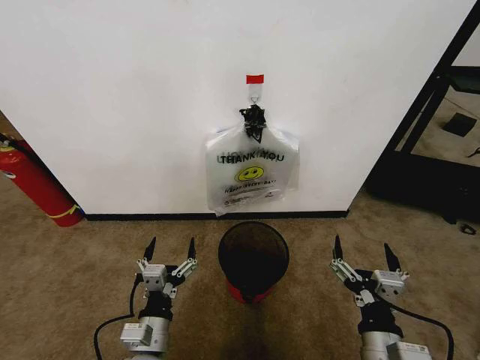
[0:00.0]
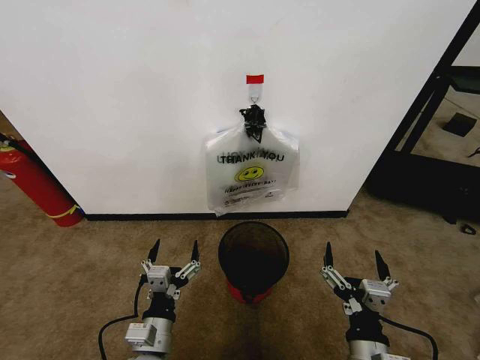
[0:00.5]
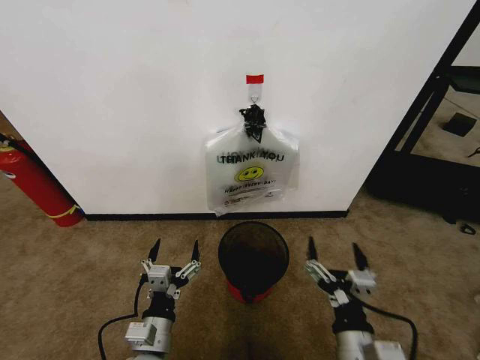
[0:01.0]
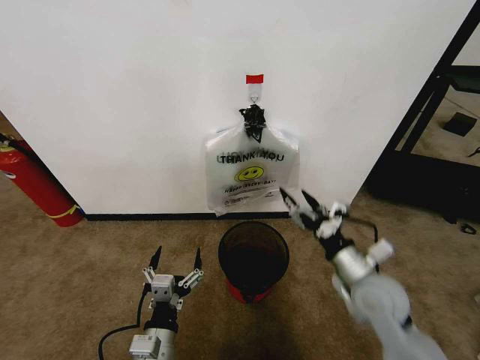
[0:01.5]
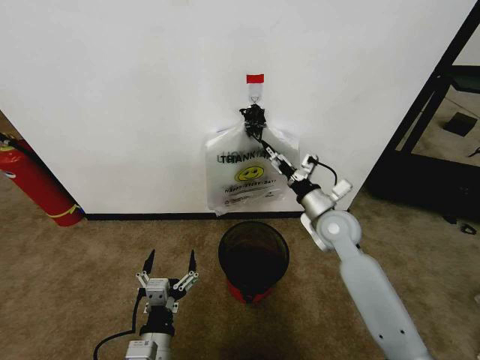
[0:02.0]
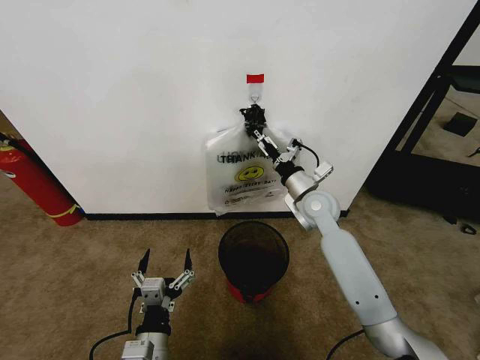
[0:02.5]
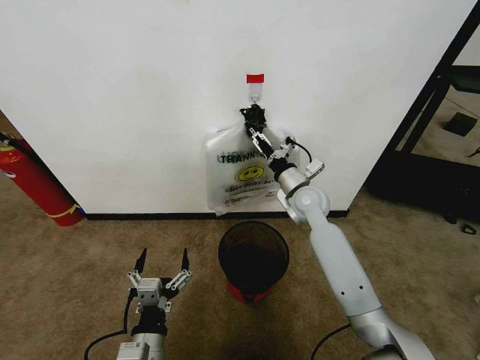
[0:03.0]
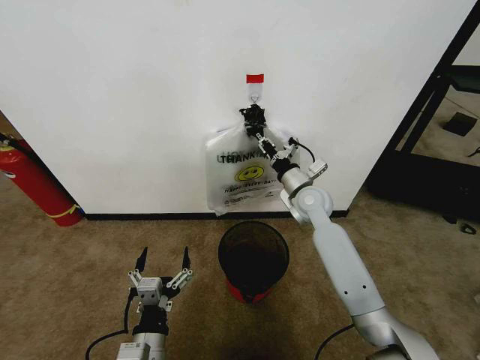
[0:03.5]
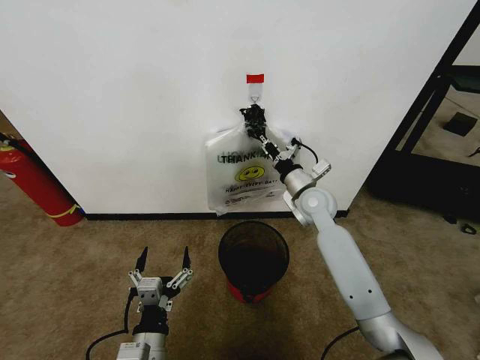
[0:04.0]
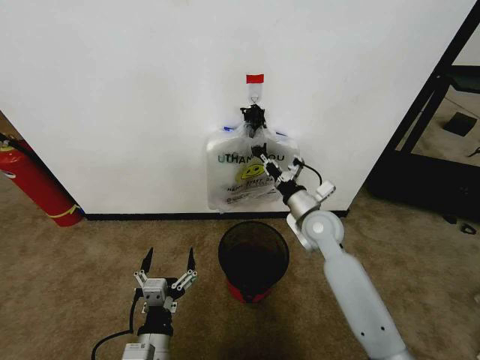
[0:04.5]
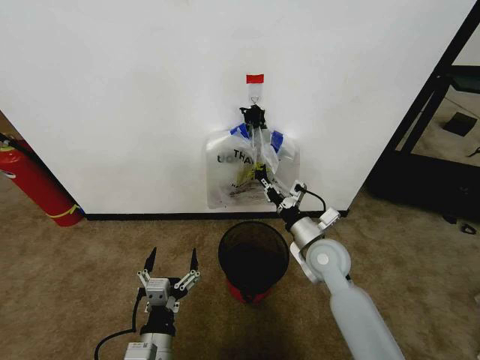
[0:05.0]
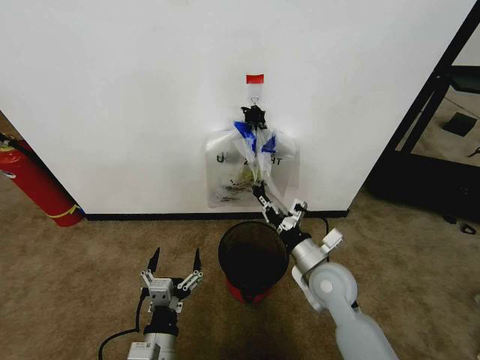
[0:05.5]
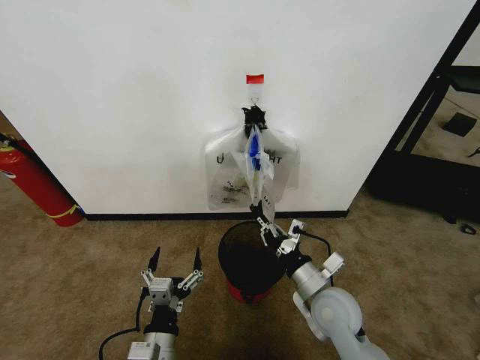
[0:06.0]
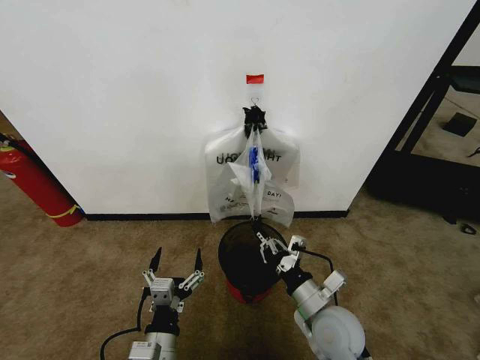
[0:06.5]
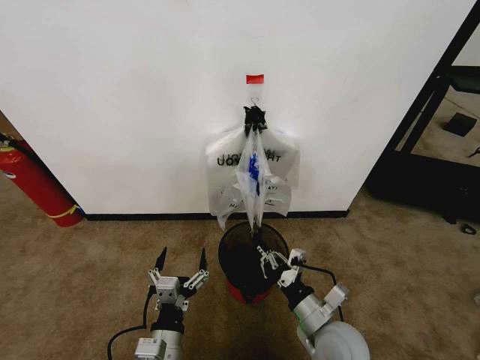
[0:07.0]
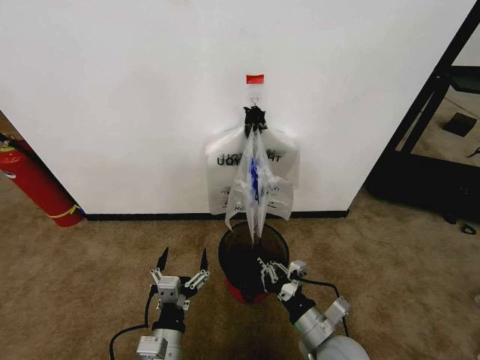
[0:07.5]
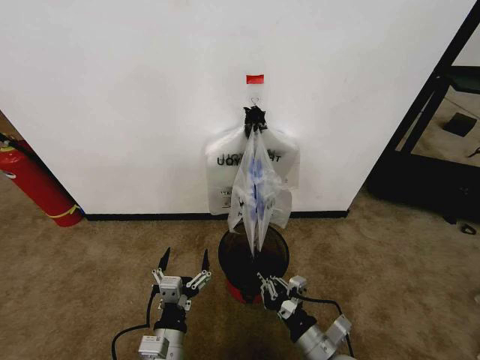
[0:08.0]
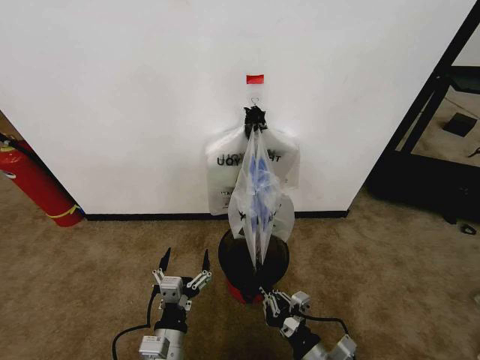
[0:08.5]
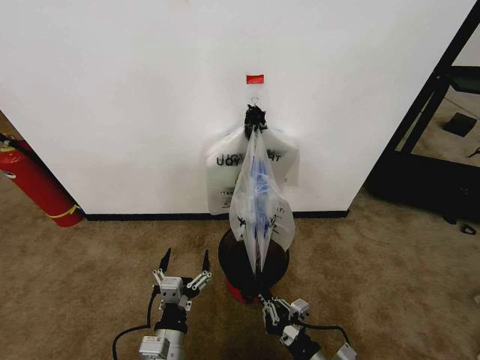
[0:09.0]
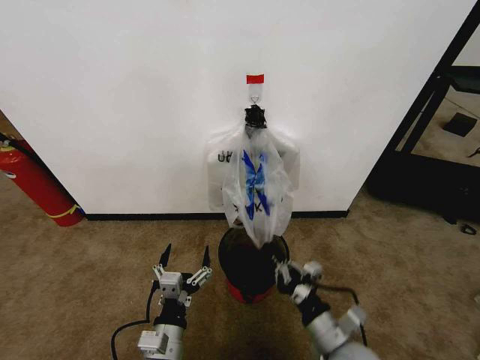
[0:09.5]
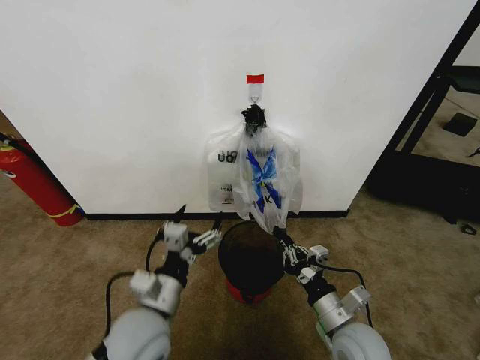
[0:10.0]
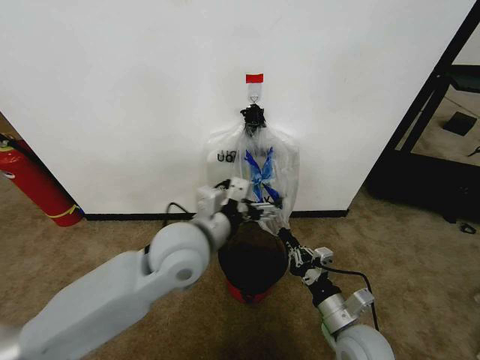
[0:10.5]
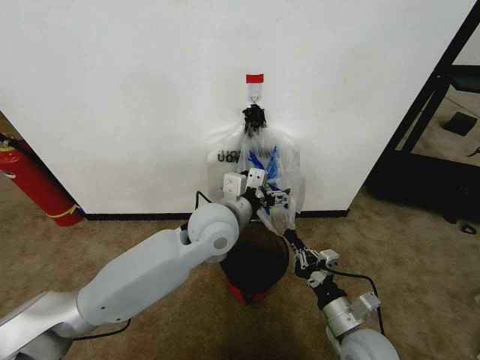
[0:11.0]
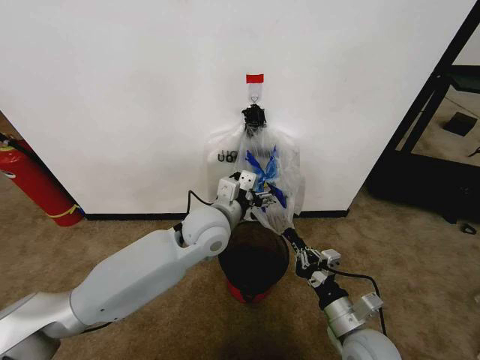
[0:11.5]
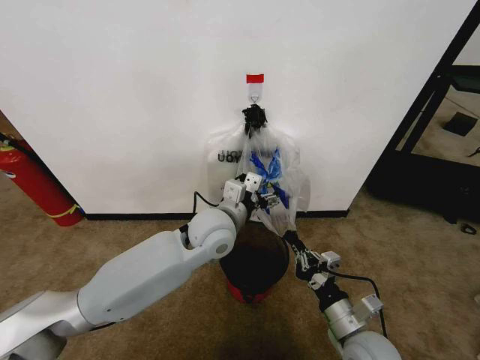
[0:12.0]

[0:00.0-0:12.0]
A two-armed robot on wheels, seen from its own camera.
Task of the whole recording: Pick up the garbage bag from the wall and place it over the trash bin.
0:02.0 to 0:04.0: The right gripper travels forward by roughly 5 cm, and closes its fingers.
0:04.0 to 0:06.0: The right gripper moves backward, roughly 20 cm.
0:06.0 to 0:08.0: The right gripper shifts roughly 10 cm backward and downward.
0:08.0 to 0:10.0: The left gripper moves upward and forward, roughly 15 cm. The right gripper moves about 5 cm.
0:10.0 to 0:12.0: The left gripper moves forward and to the right, roughly 20 cm.

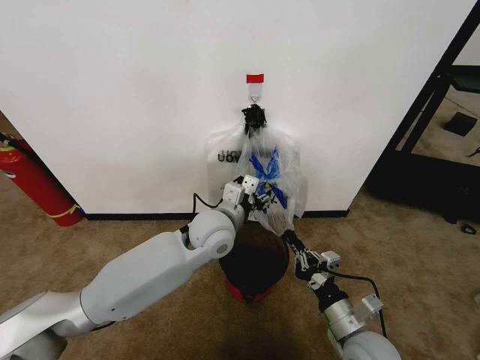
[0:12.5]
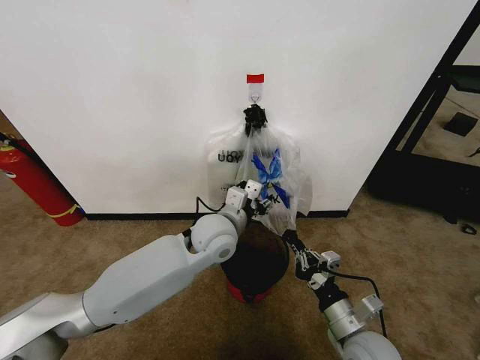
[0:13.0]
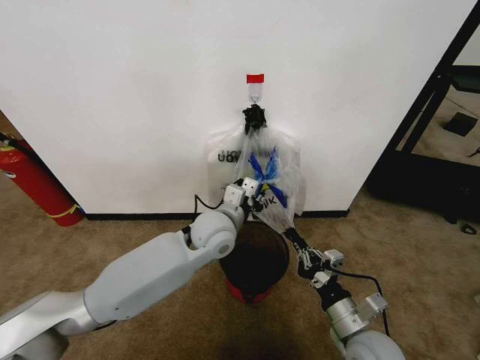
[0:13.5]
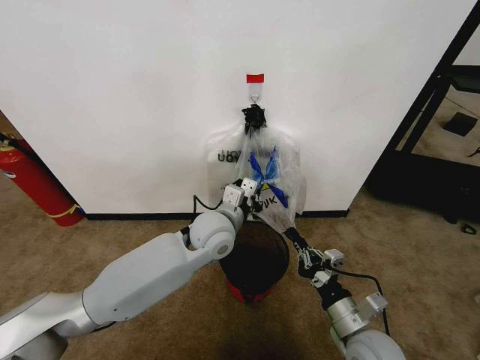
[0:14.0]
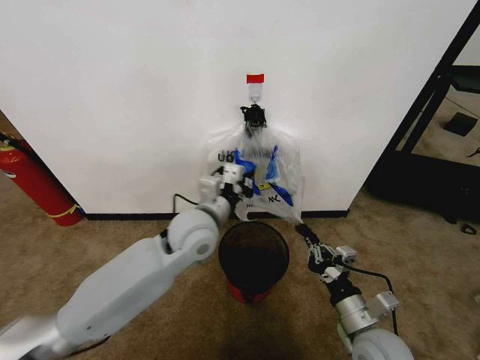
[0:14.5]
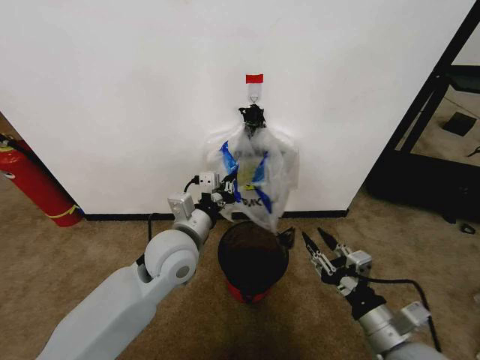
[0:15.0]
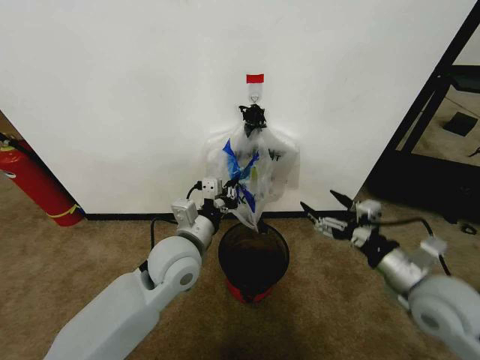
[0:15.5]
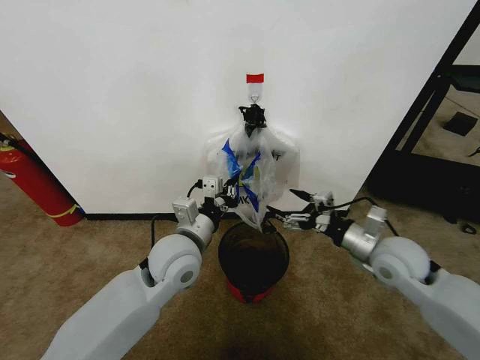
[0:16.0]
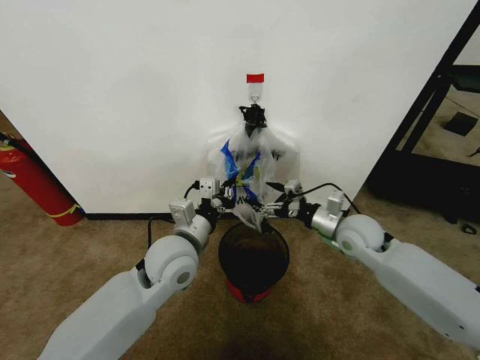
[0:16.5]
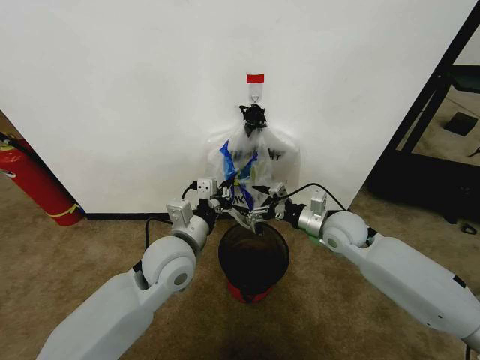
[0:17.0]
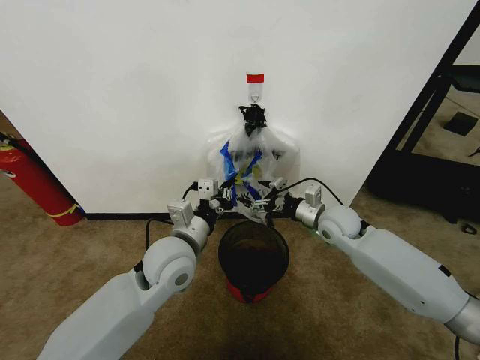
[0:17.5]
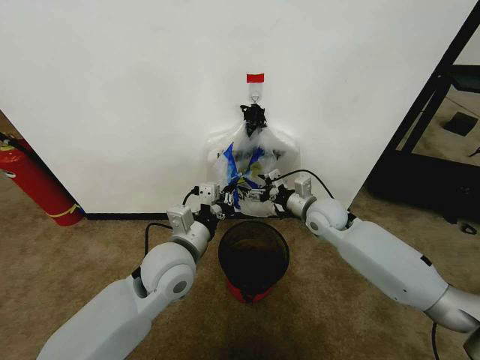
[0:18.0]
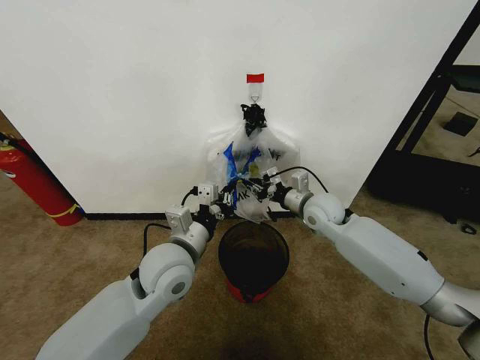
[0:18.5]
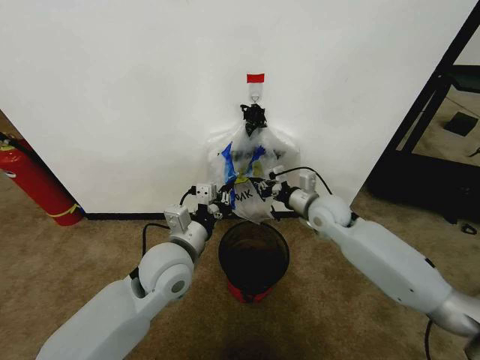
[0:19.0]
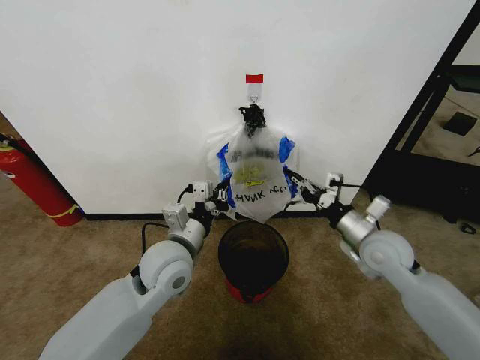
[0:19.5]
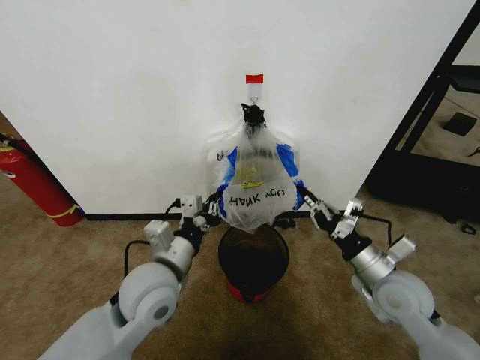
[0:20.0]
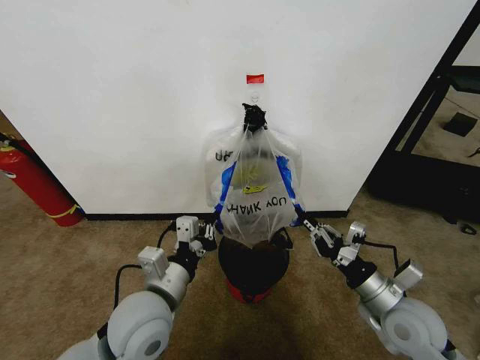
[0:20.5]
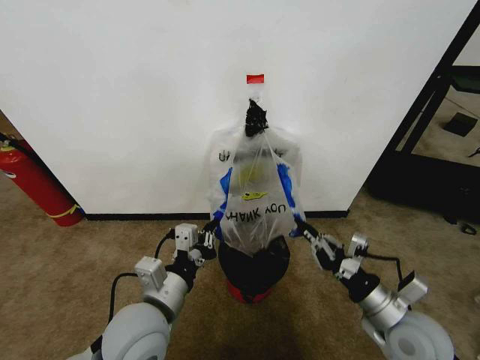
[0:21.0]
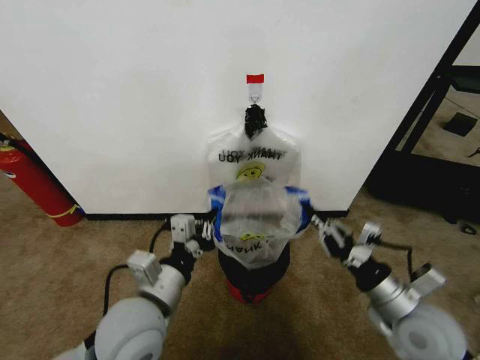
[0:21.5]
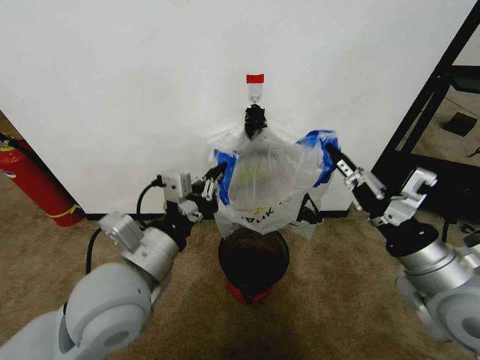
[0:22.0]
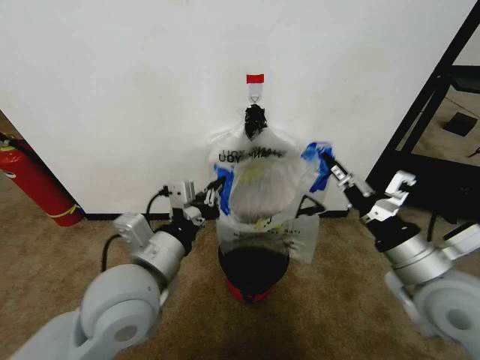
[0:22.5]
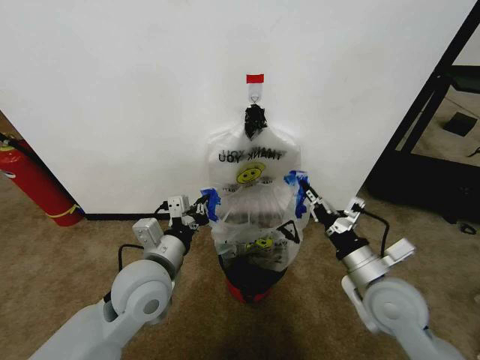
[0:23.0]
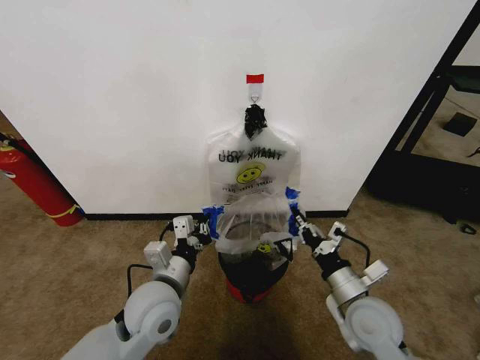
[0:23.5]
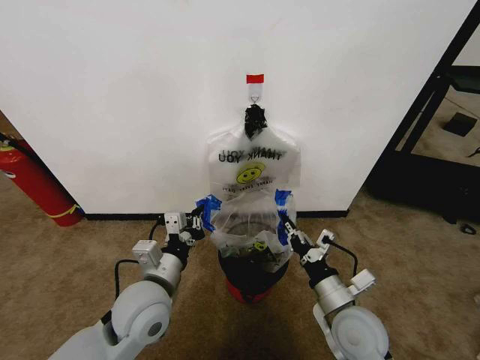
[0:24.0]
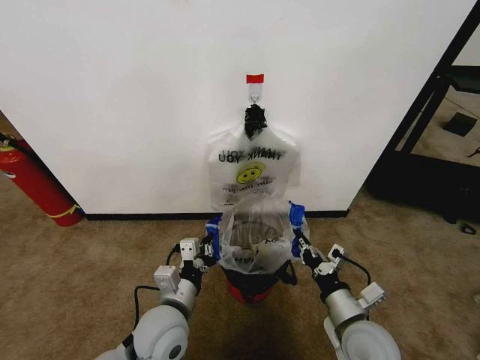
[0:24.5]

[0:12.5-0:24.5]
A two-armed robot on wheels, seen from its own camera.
Task of the whole recording: Pick up the garbage bag from the wall and place it over the trash bin.
0:12.5 to 0:14.5: The left gripper closes its fingers.
0:14.5 to 0:16.5: The right gripper heads forward, covering roughly 20 cm, and opens. The left gripper ends up about 5 cm from where it was.
0:16.5 to 0:18.5: The right gripper is displaced forward and to the left by approximately 10 cm, and closes up.
0:18.5 to 0:20.5: The left gripper heads backward, covering approximately 10 cm, while the right gripper is displaced backward and to the right by approximately 25 cm.
0:20.5 to 0:22.5: The two grippers go roughly 10 cm upward.
0:22.5 to 0:24.5: The two grippers go roughly 15 cm downward.

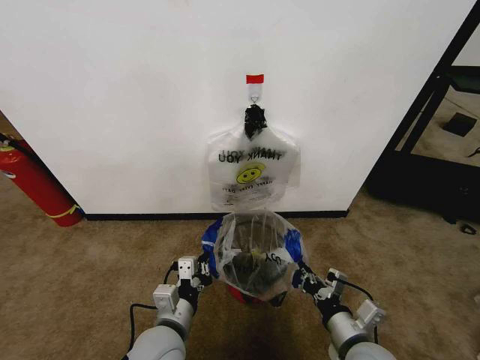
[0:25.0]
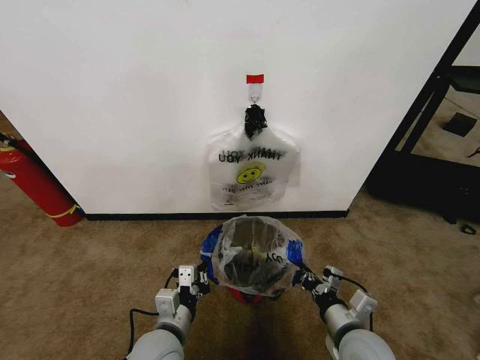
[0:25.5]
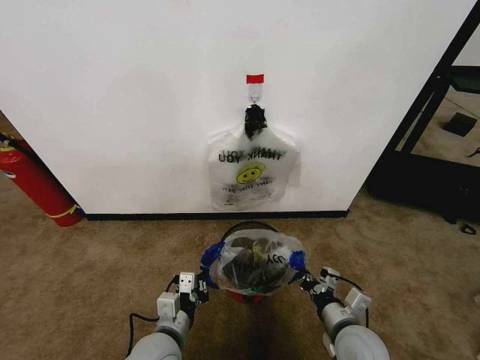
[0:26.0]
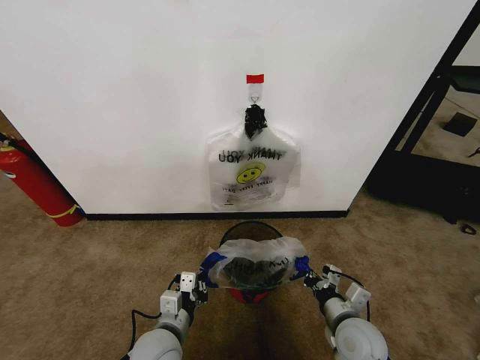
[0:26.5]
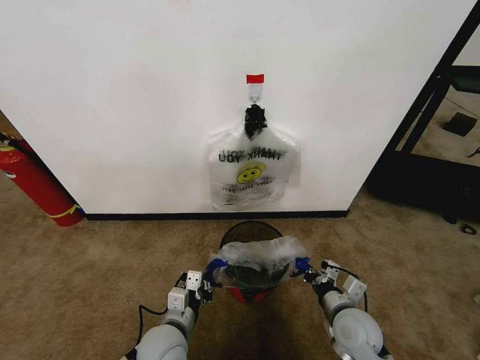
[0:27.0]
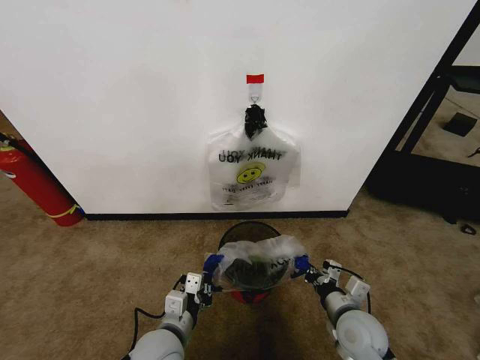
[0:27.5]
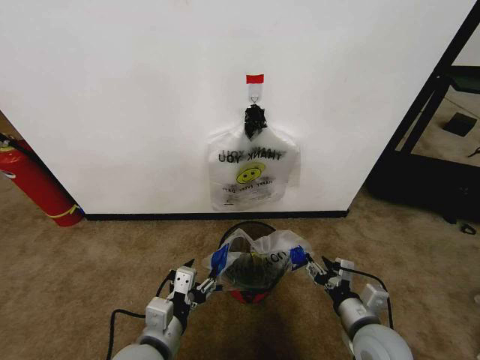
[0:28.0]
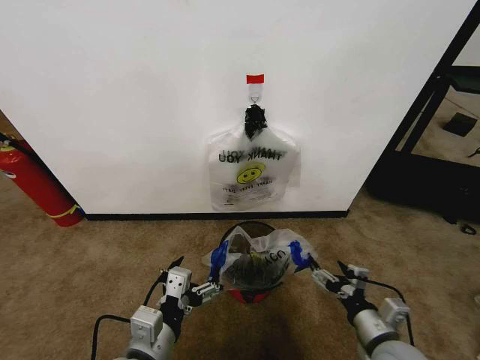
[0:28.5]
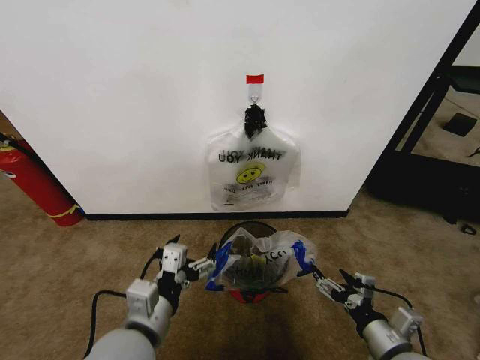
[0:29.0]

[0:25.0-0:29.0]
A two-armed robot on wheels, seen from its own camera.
Task of the whole recording: Pick up the garbage bag from the wall and place it over the trash bin.
0:25.0 to 0:27.0: The right gripper is displaced forward by approximately 5 cm. The left gripper moves about 5 cm.
0:27.0 to 0:29.0: The left gripper is displaced upward by some 15 cm, and opens its fingers. The right gripper travels backward, to the right and upward by roughly 10 cm, and opens up.
